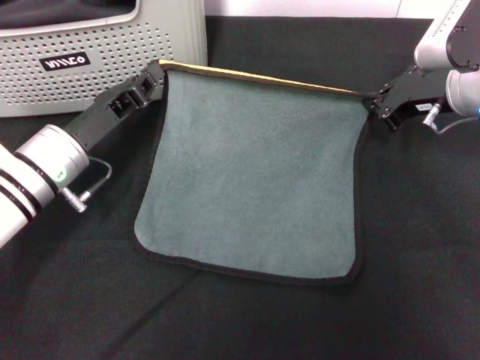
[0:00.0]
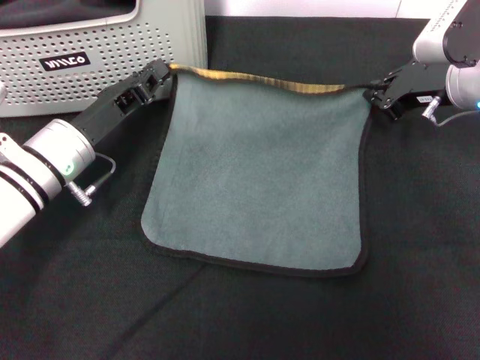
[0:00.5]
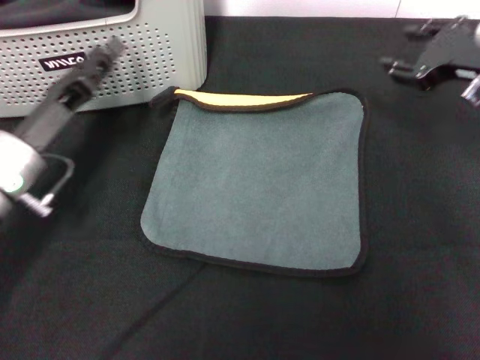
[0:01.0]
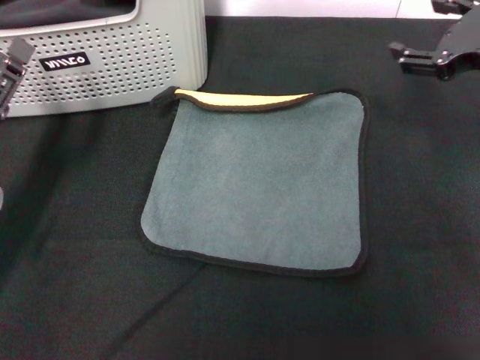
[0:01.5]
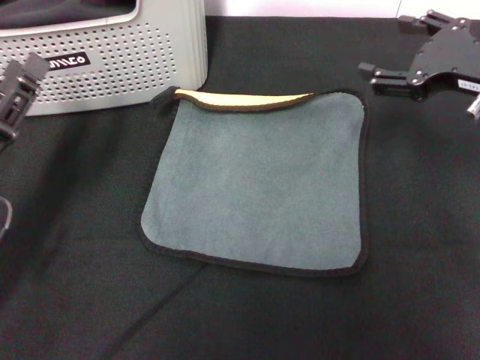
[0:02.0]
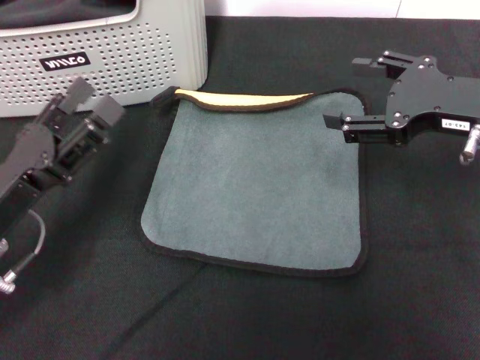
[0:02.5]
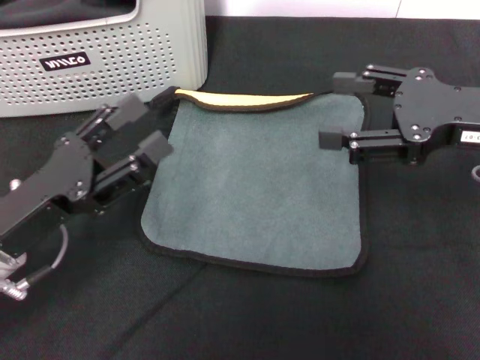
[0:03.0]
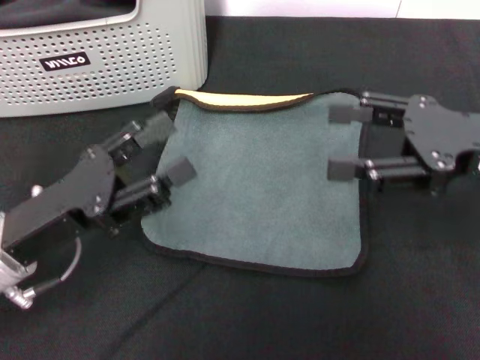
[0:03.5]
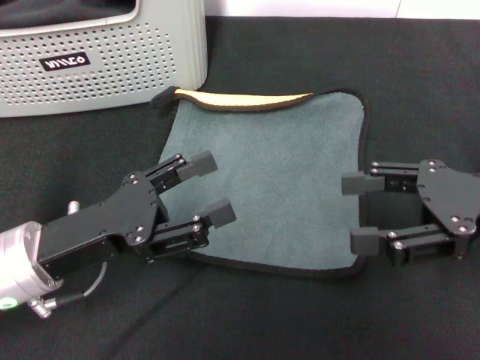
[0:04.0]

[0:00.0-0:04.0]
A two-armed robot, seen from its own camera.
Task of the whole recording: pick up the towel from the storage box and lay it flat on the black tablecloth.
0:00.0 to 0:02.0: The left gripper travels backward and to the left by roughly 10 cm, and opens its fingers. Meanwhile the right gripper travels backward and upward by about 10 cm, and opens.
0:02.0 to 0:04.0: The left gripper heads to the right, covering about 5 cm. Meanwhile the right gripper travels backward by some 5 cm.
